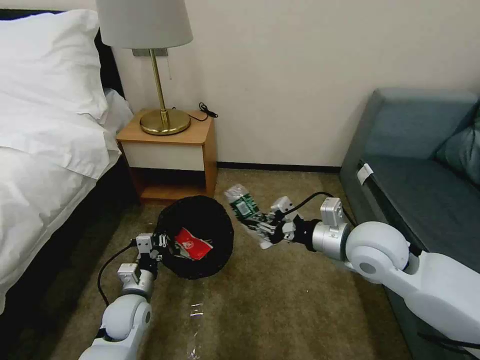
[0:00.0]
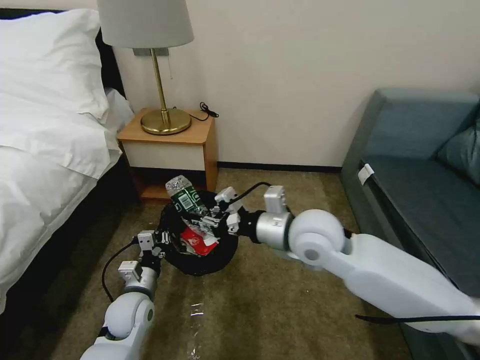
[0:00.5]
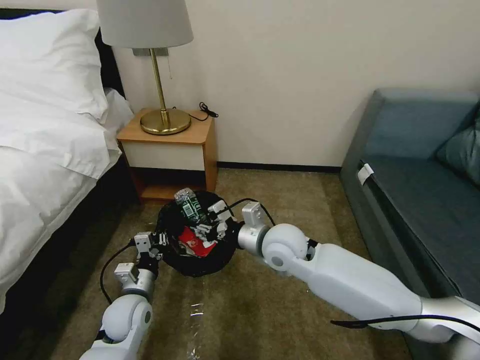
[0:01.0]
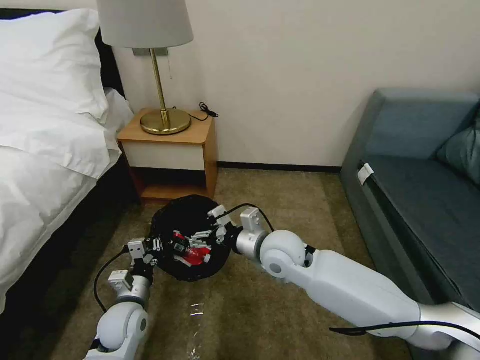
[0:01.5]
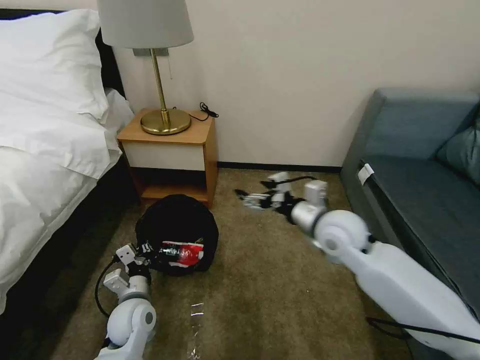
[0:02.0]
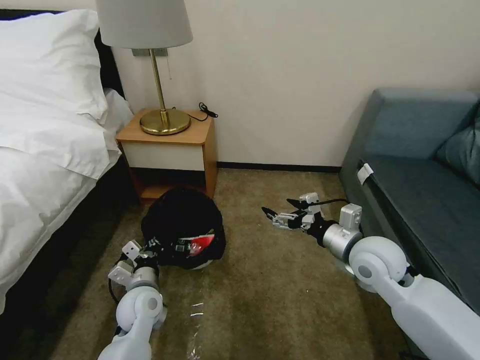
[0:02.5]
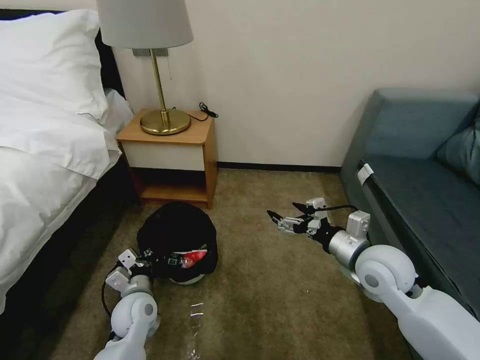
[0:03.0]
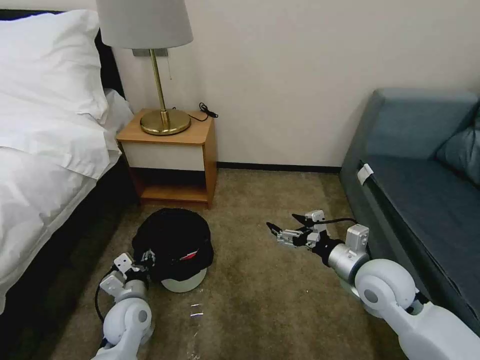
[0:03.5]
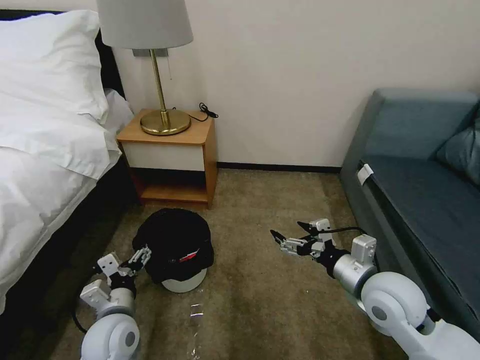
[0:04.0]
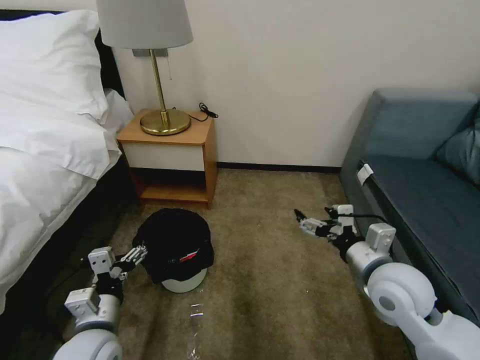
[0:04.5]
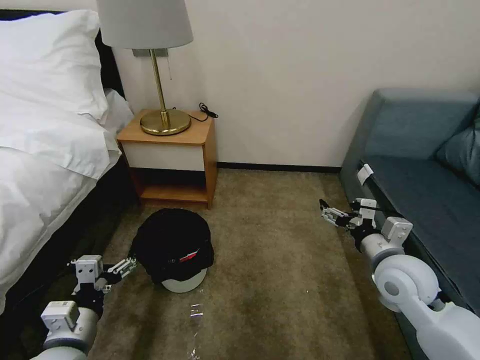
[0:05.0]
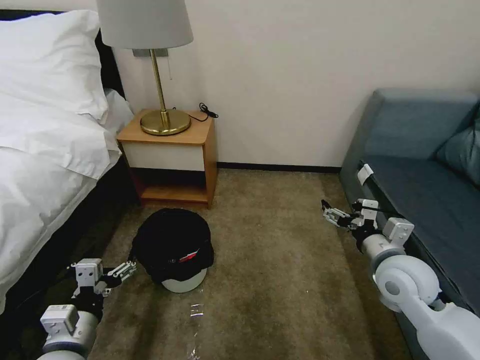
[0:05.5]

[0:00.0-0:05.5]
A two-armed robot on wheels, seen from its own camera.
Task of the whole recording: Pick up the trash bin, then pick up the garbage on the floor and place it into the trash bin.
0:00.0 to 0:02.0: The right gripper is displaced forward by about 5 cm, goes to the left and returns, some 15 cm each way, and opens its fingers.
0:02.0 to 0:03.5: The right gripper is displaced backward and to the right by approximately 10 cm. The left gripper opens.
0:03.5 to 0:05.5: The left gripper heads backward and upward, covering about 15 cm, and opens its fingers.

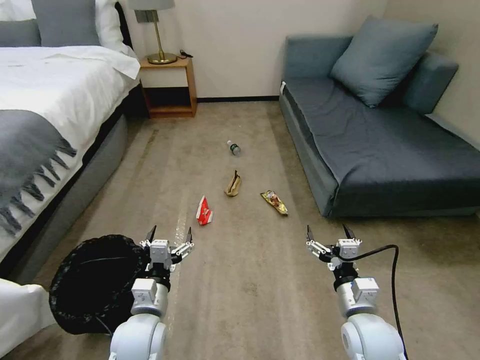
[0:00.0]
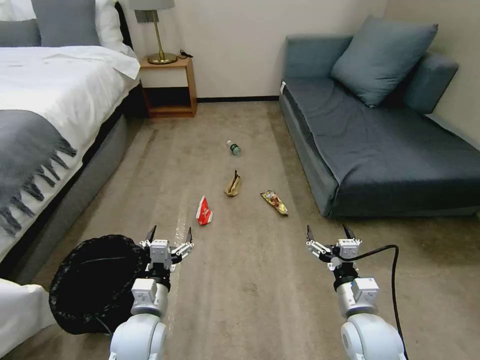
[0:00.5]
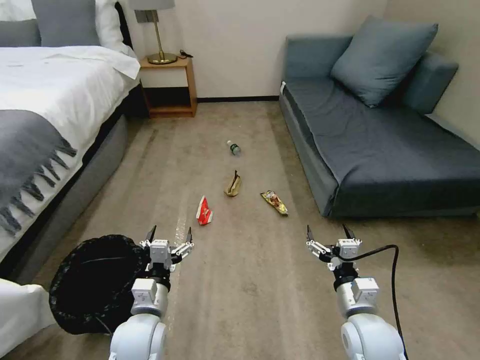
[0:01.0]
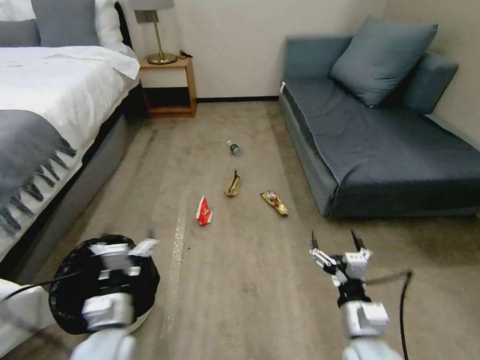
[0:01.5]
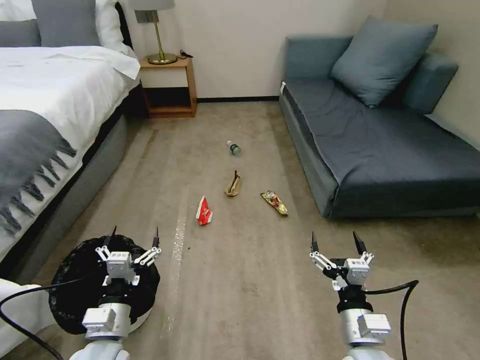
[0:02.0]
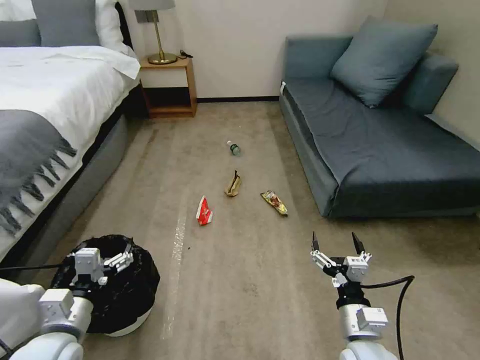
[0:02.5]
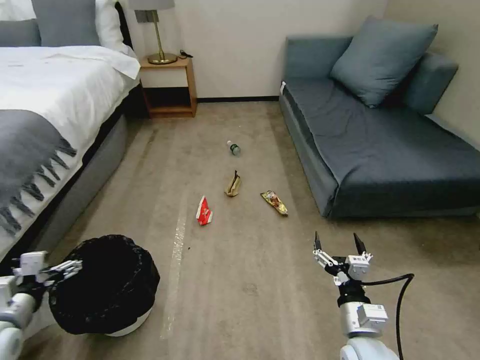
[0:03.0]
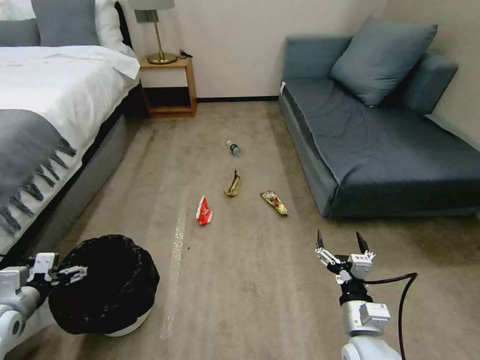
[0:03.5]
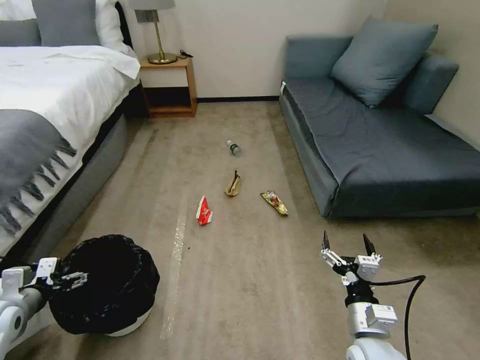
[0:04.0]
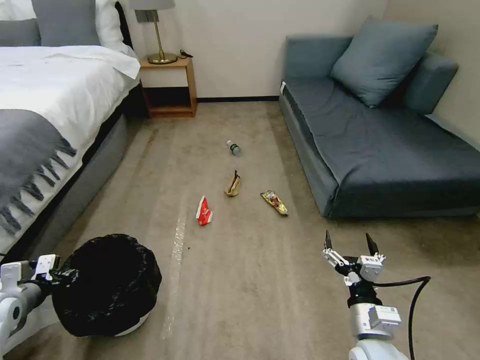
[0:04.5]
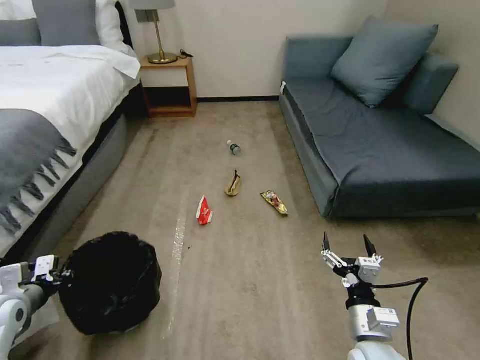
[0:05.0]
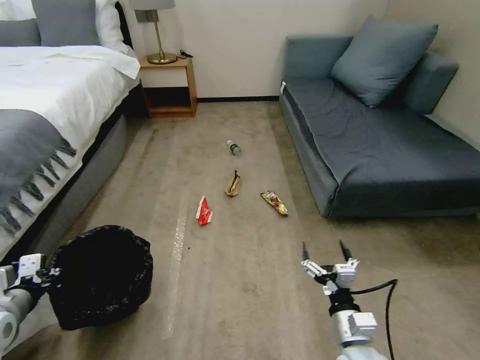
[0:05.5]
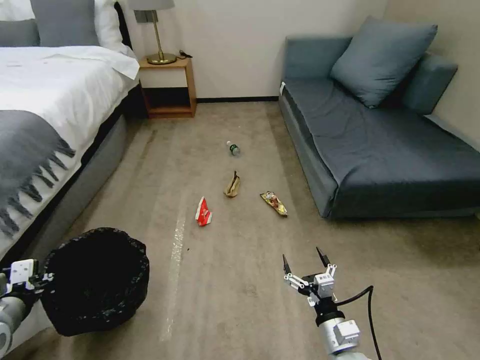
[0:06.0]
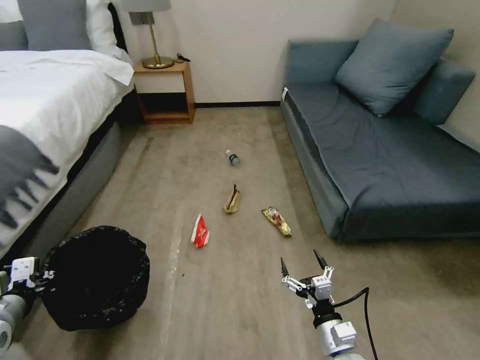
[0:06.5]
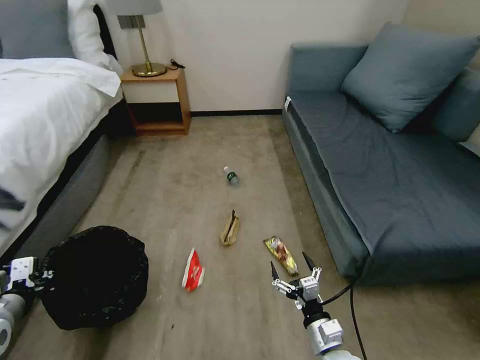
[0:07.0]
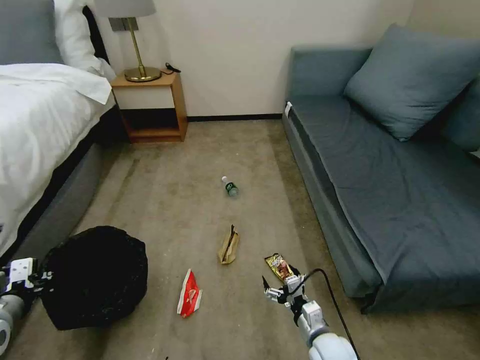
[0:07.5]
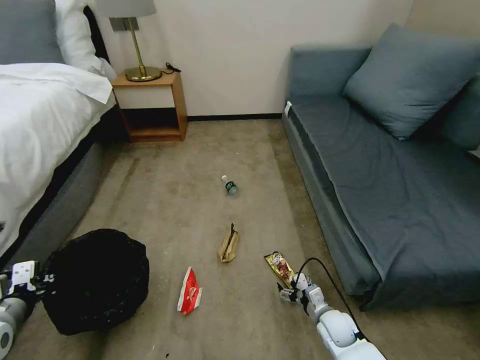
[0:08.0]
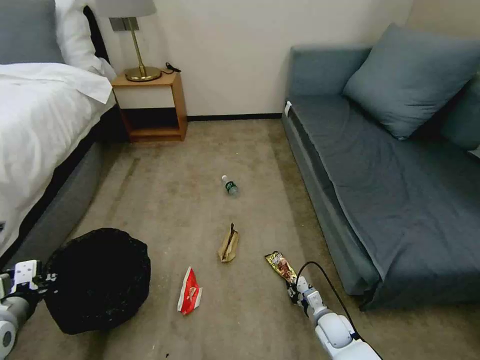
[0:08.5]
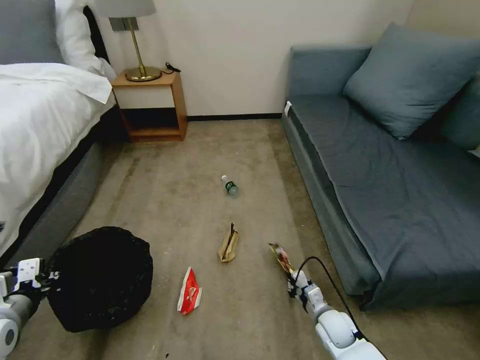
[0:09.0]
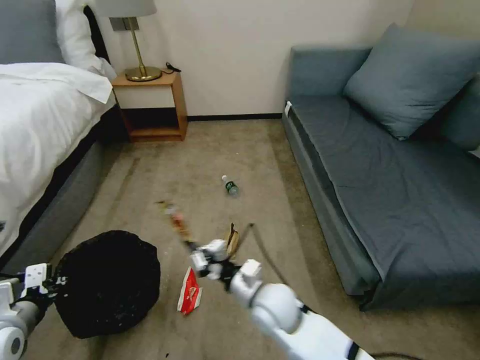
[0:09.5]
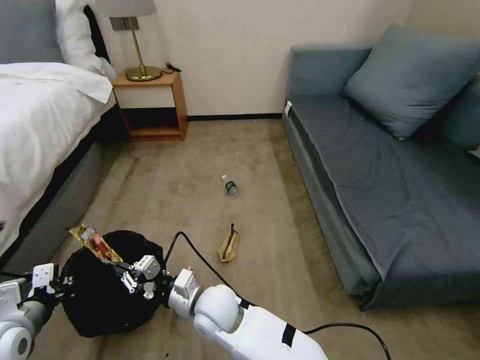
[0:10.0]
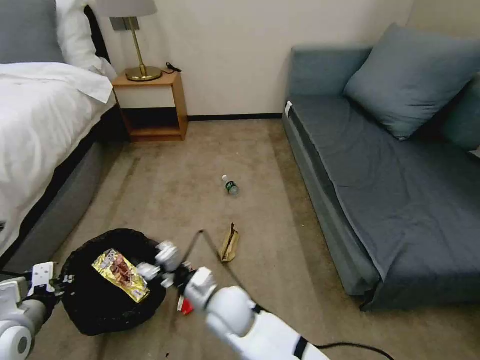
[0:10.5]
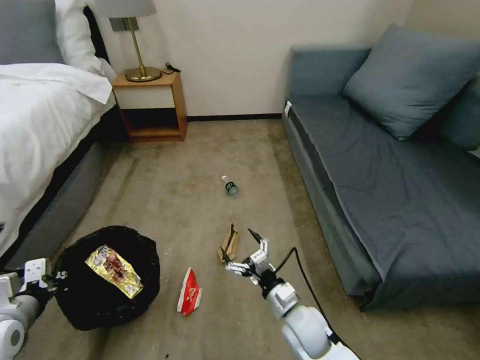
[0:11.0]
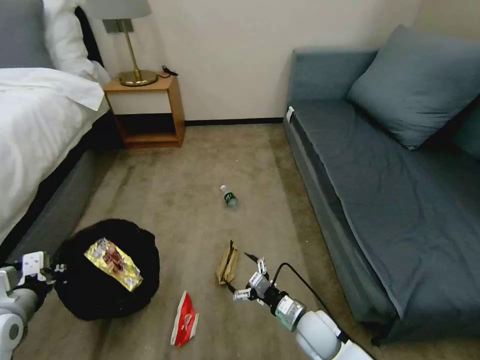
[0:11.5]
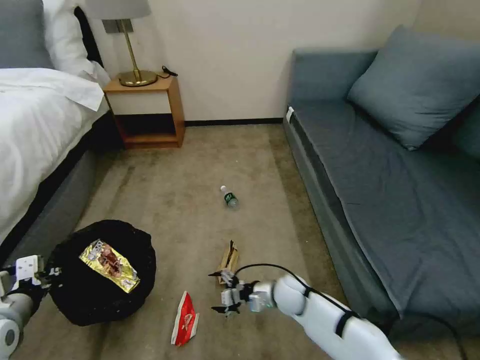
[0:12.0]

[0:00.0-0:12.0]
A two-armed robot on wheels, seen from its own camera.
Task of the whole recording: Pick up the trash bin, then pick up the garbage on the floor and place it into the trash bin.
0:02.0 to 0:04.0: The left gripper moves to the left, about 25 cm.
0:04.0 to 0:06.0: The left gripper heads upward, covering roughly 5 cm, and closes its fingers. The right gripper travels downward by approximately 5 cm.
0:06.0 to 0:08.0: The right gripper goes approximately 15 cm downward and forward.
0:08.0 to 0:10.0: The right gripper is displaced to the left and upward by roughly 35 cm, and closes up.
0:10.0 to 0:12.0: The right gripper goes about 25 cm to the right, downward and forward, and opens its fingers.

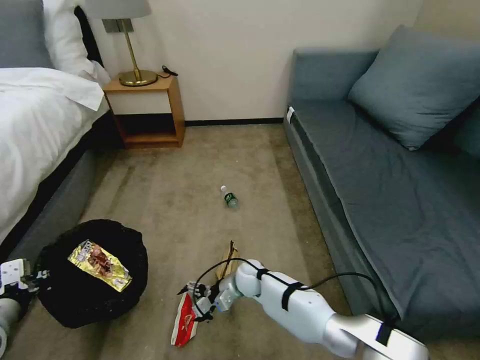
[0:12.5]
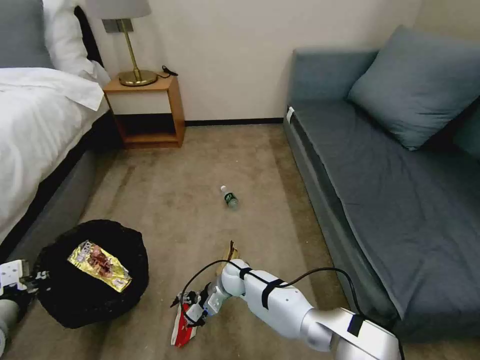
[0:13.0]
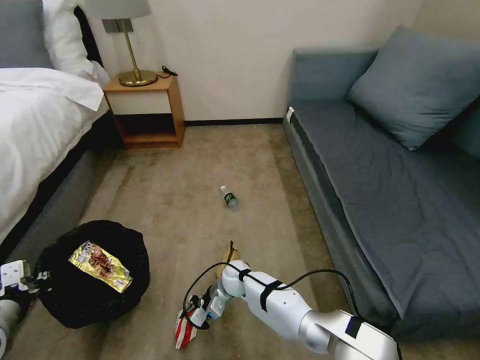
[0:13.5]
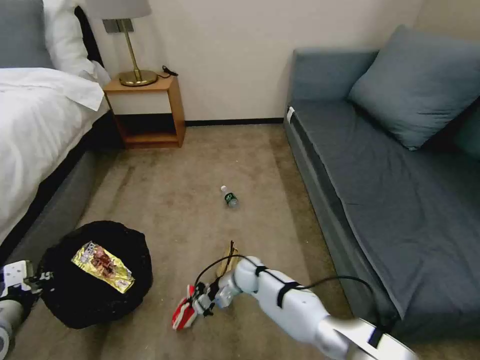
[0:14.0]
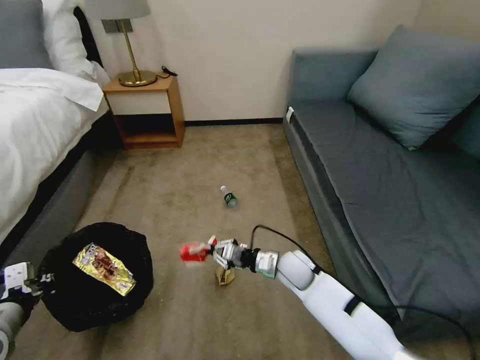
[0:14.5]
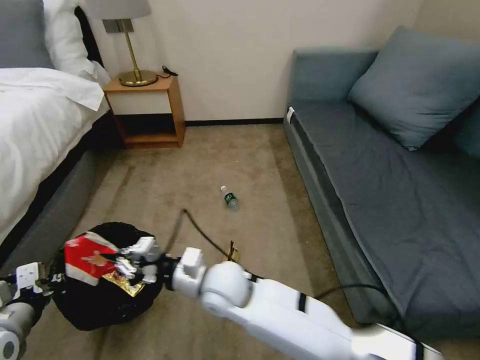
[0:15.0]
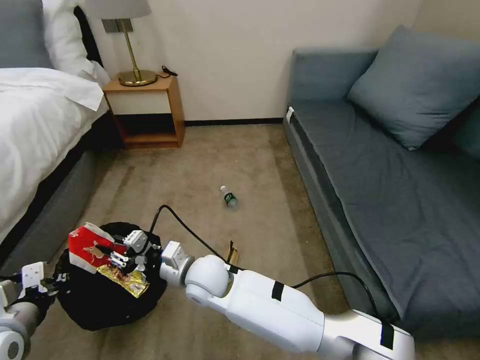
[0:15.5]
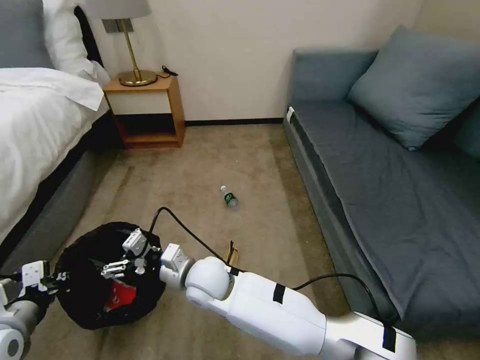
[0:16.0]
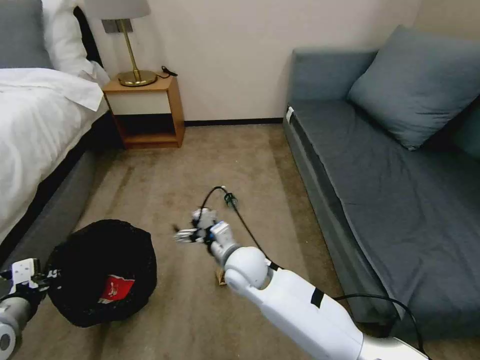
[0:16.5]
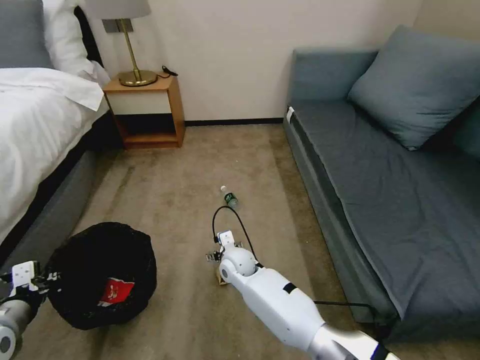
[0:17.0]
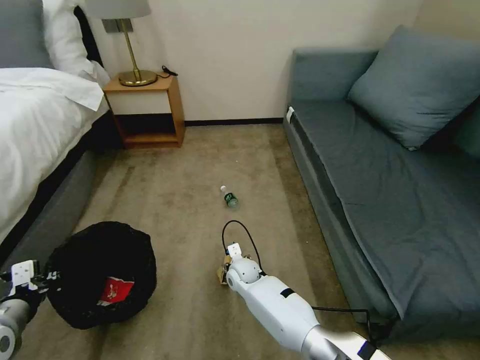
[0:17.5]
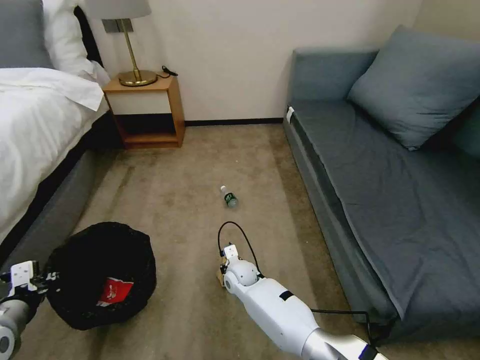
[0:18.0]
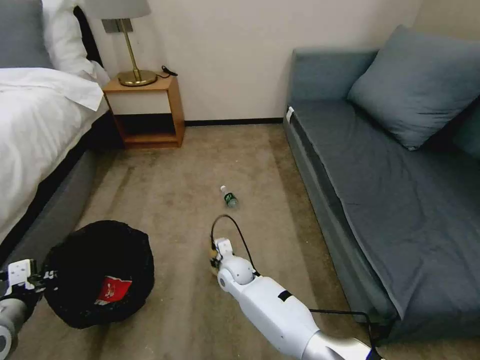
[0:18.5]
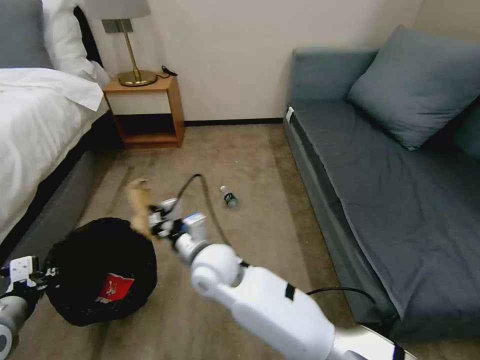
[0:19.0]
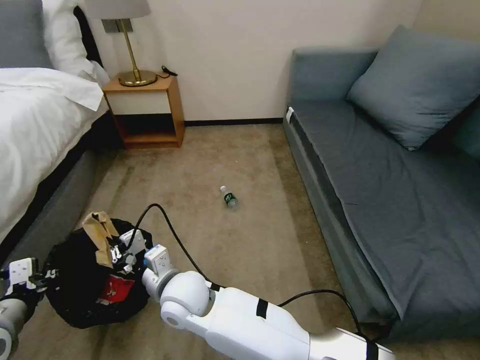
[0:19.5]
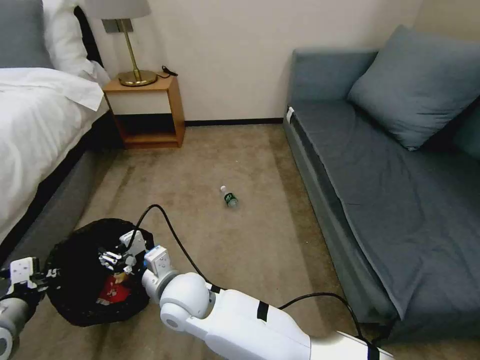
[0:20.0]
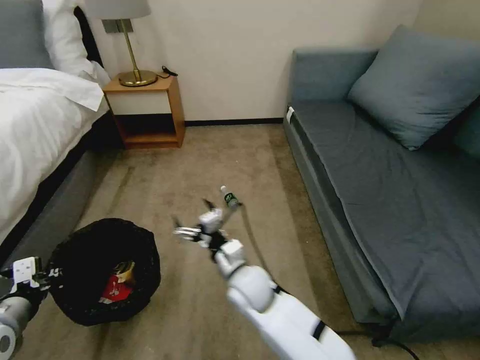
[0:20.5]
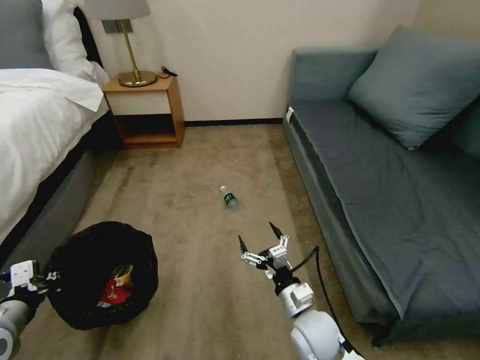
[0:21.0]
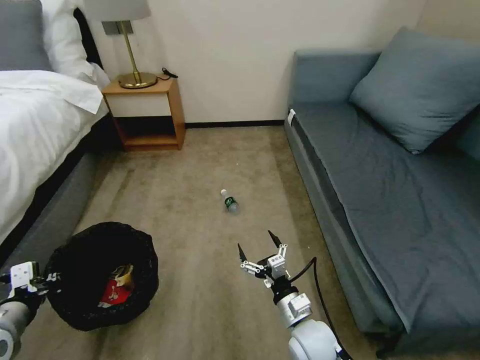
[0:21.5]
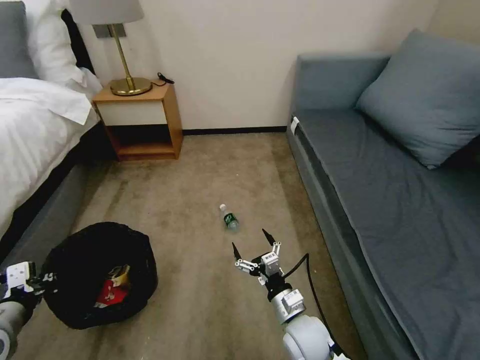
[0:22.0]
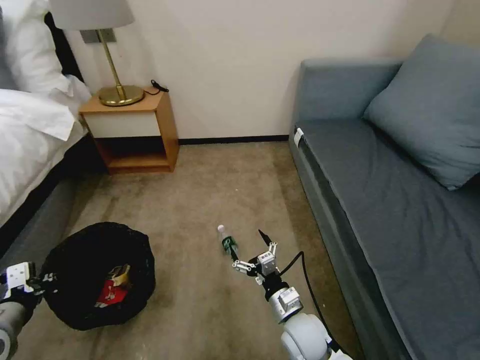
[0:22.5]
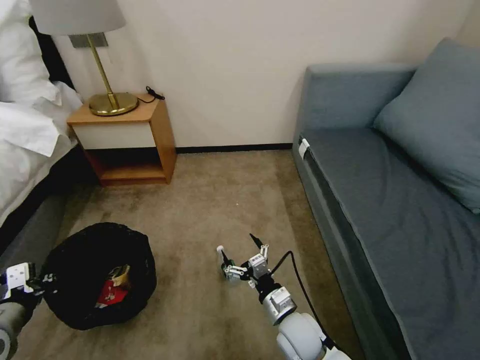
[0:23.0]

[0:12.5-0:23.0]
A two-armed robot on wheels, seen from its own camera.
Task of the whole recording: Pick up the trash bin, then pick up the garbage on the floor and place it into the trash bin.
0:12.5 to 0:14.5: The right gripper heads to the right and upward, covering about 15 cm, and closes up.
0:14.5 to 0:16.5: The right gripper travels to the left and upward by approximately 15 cm, and opens its fingers.
0:16.5 to 0:19.0: The right gripper travels to the left by some 5 cm, travels downward and back again, roughly 15 cm each way, and closes.
0:19.0 to 0:21.0: The right gripper is displaced to the right, downward and backward by roughly 25 cm, and opens up.
